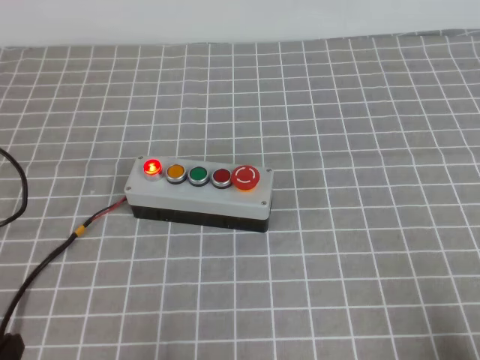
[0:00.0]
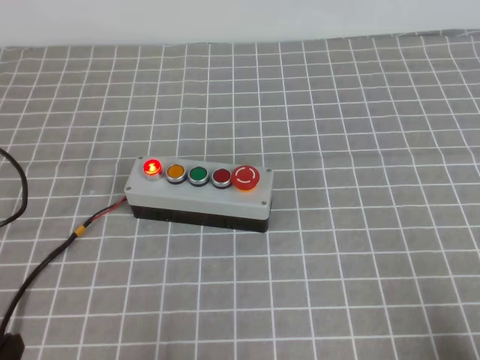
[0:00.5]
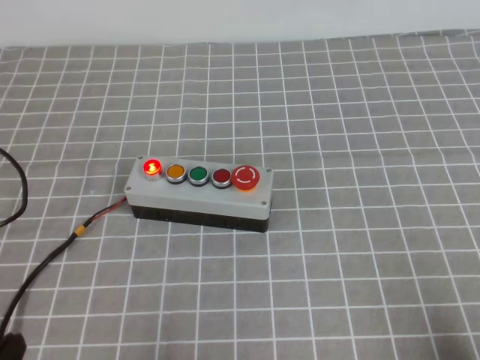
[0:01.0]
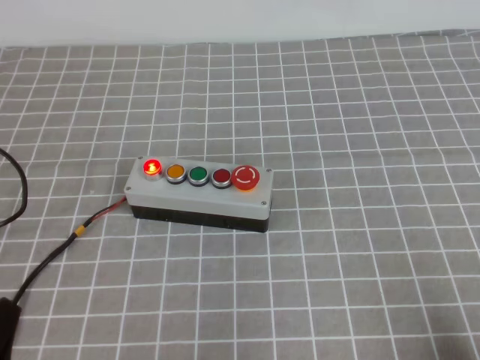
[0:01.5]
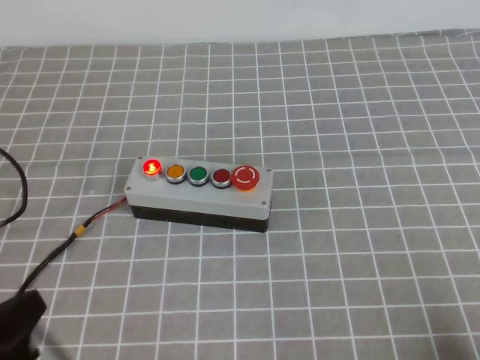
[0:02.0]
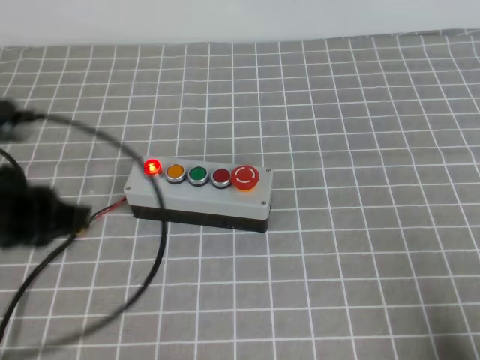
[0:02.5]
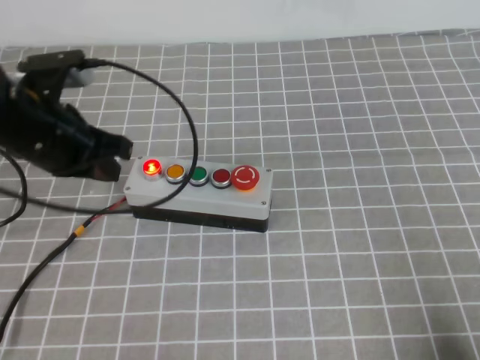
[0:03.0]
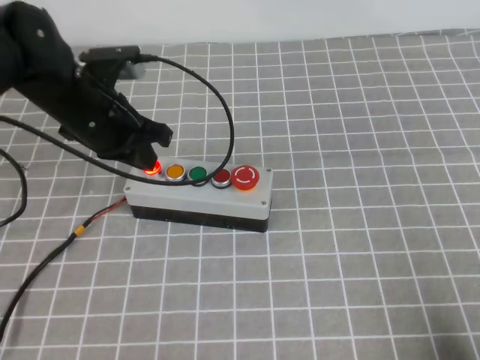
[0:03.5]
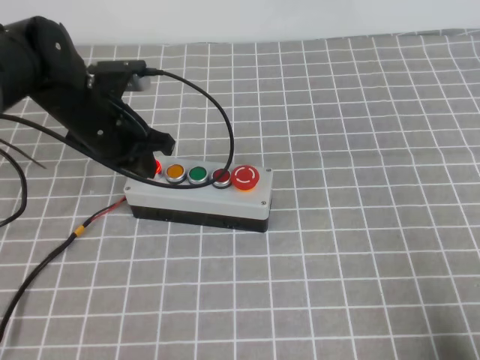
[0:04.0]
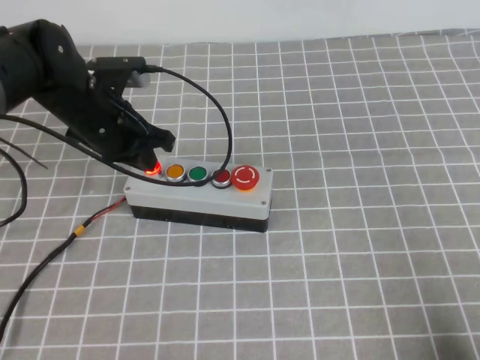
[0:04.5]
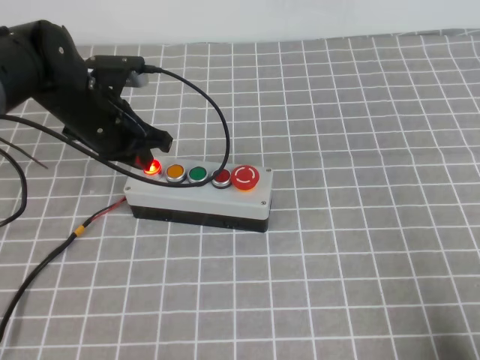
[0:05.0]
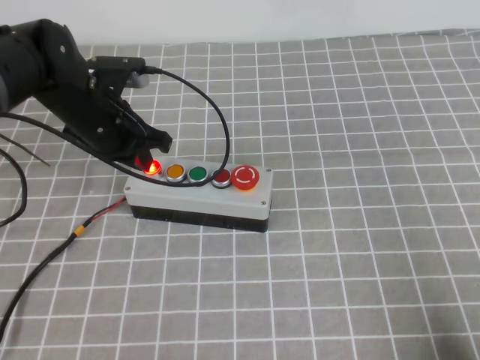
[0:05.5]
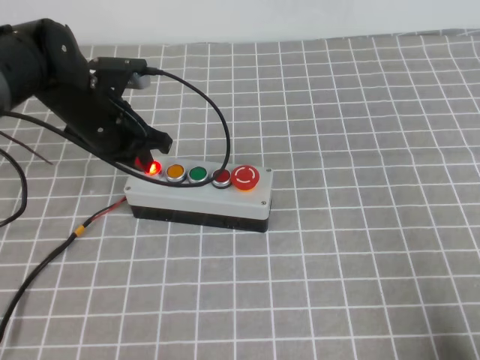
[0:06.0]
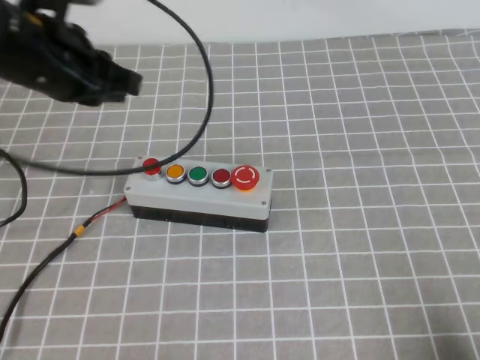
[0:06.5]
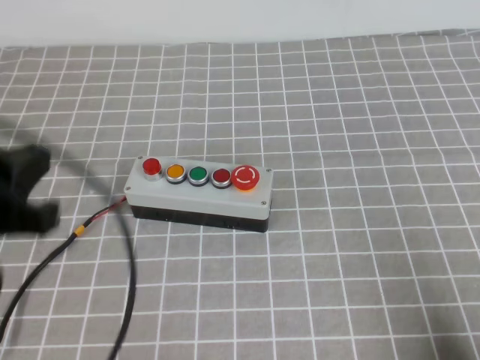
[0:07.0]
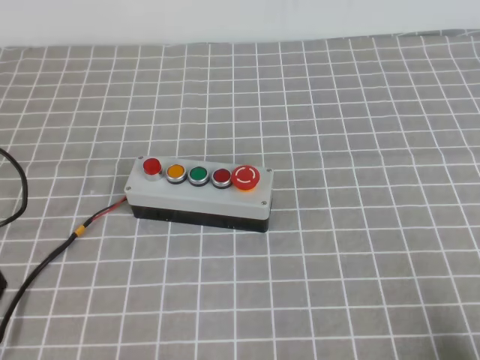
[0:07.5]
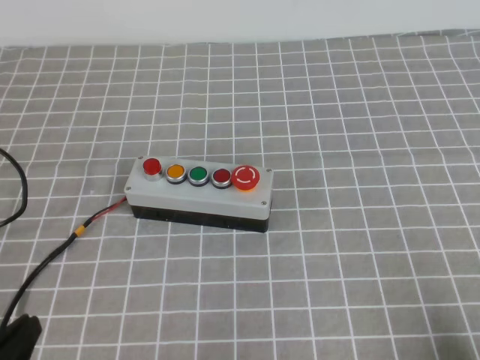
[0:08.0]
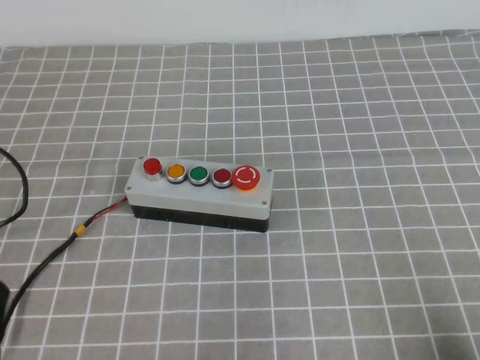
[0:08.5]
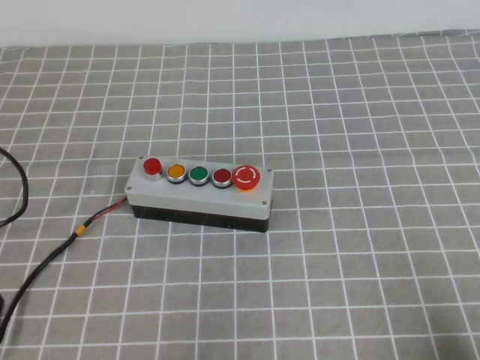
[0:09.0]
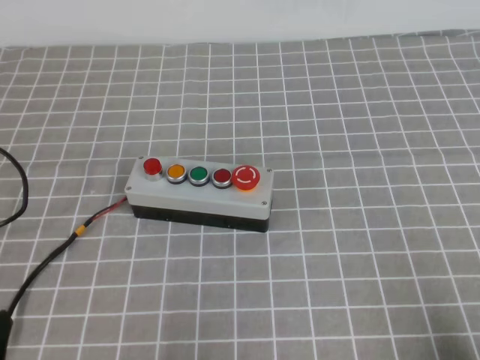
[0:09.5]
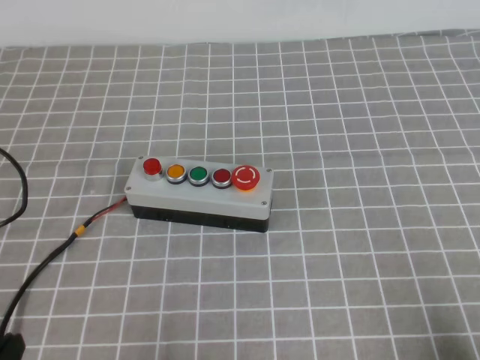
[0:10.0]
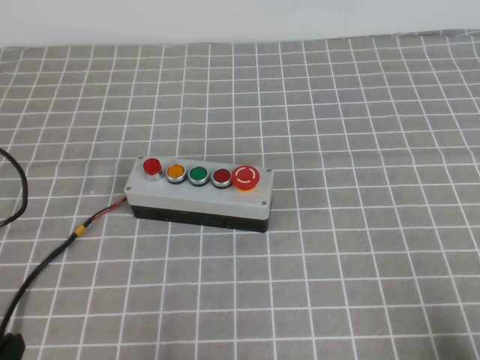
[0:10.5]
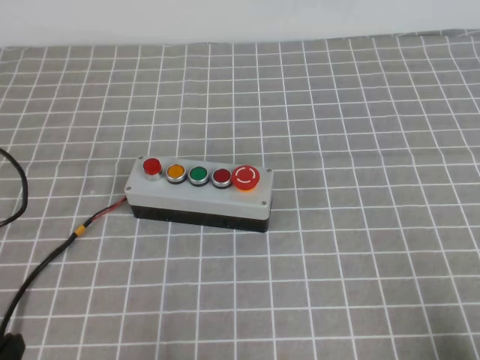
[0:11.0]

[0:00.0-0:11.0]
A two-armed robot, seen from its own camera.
Task of the whole recording: press the button switch on the grey tablecloth with the left gripper to turn off the button.
Step, 0:00.0 to 0:11.0: Press the button to turn off.
0:00.0 to 0:02.0: The left gripper moves upward, approximately 10 cm.
0:02.0 to 0:03.5: The left gripper travels forward by about 30 cm.
0:03.5 to 0:05.5: The grippers move only a little.
0:05.5 to 0:07.5: The left gripper goes approximately 35 cm backward.
0:07.5 to 0:09.0: The left gripper travels downward by roughly 10 cm.
